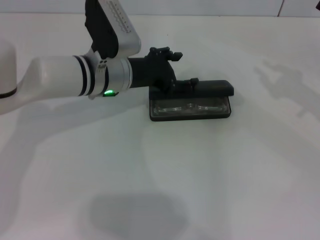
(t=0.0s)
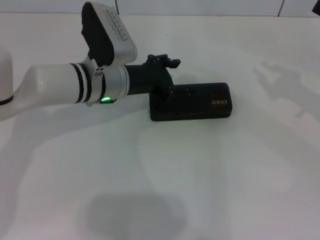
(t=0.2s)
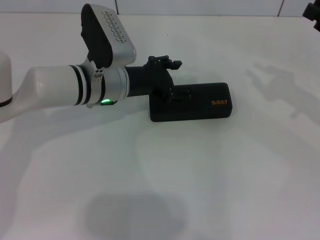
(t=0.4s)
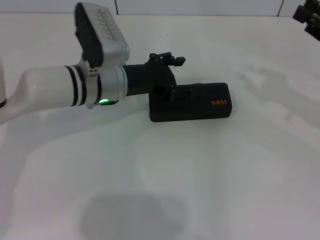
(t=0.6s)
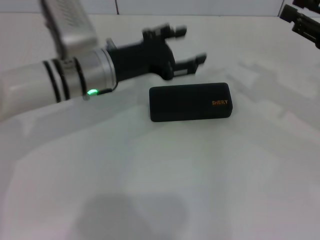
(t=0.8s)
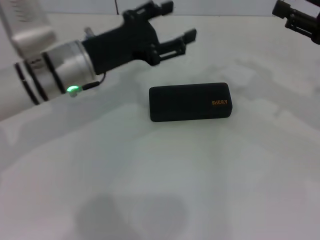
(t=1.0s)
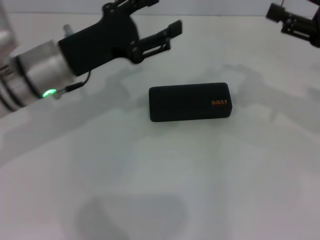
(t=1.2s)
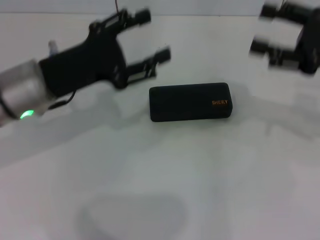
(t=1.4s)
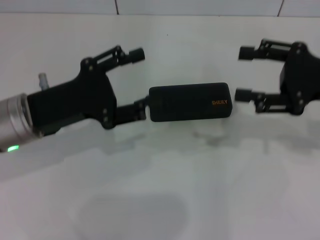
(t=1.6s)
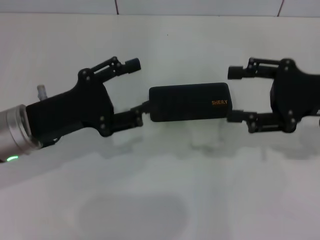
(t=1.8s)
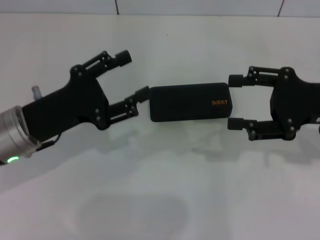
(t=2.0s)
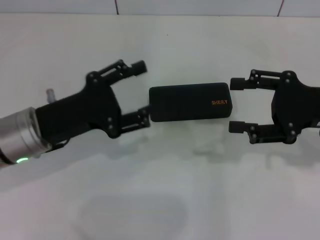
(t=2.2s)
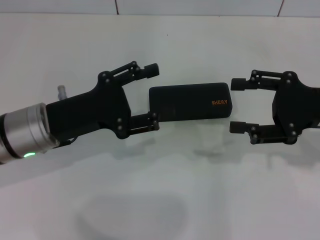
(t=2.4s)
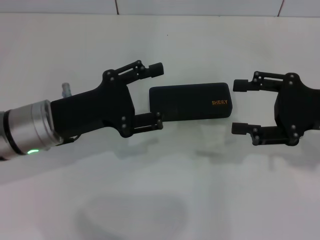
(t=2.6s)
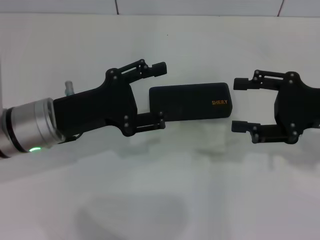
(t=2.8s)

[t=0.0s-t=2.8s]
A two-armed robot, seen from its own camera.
t=0.0s to t=1.4s: The left gripper is displaced to the left and backward by some 15 cm; the right gripper shifts approximately 5 cm to the left, and opens its fingers.
